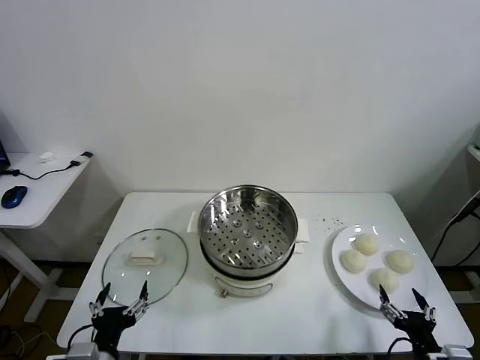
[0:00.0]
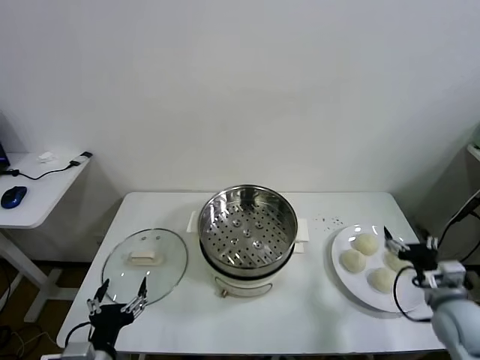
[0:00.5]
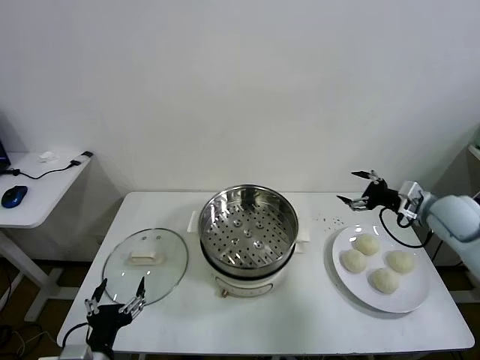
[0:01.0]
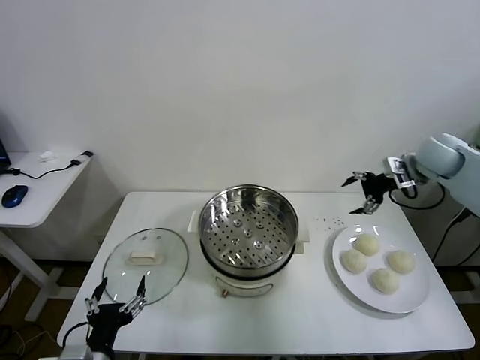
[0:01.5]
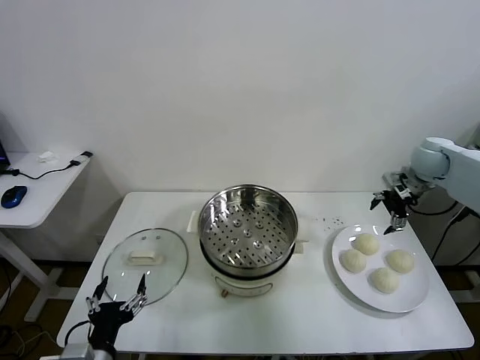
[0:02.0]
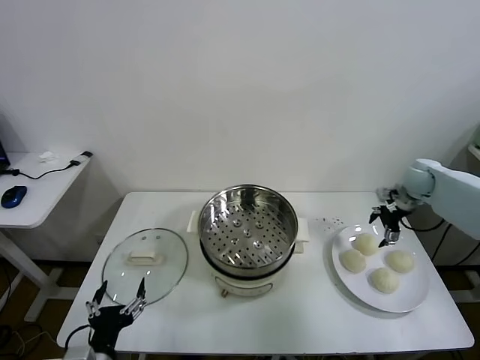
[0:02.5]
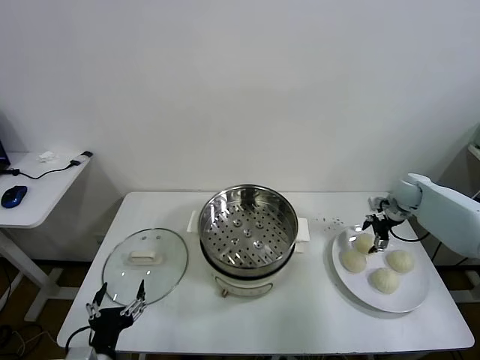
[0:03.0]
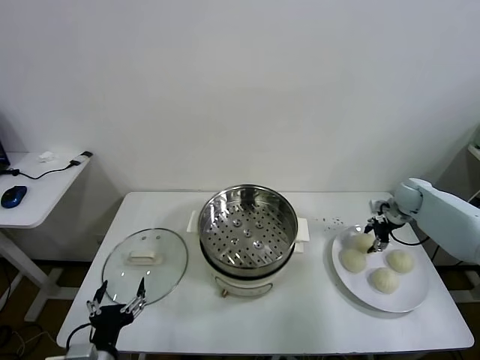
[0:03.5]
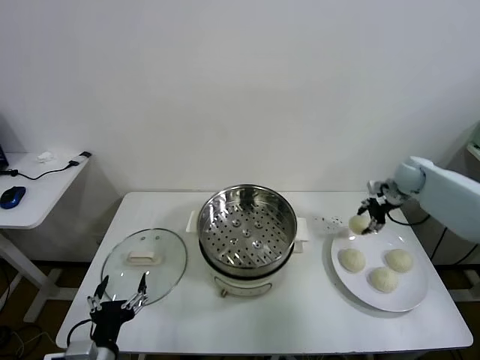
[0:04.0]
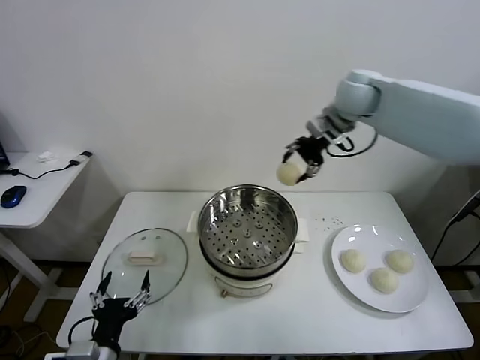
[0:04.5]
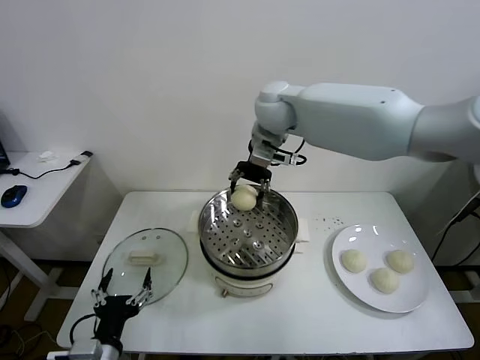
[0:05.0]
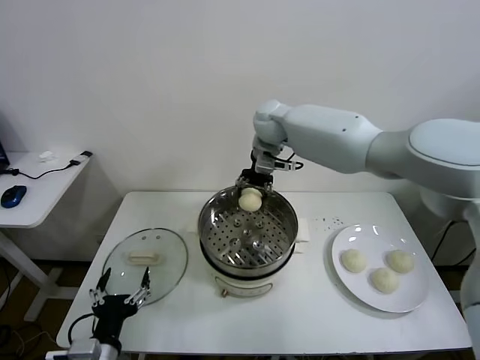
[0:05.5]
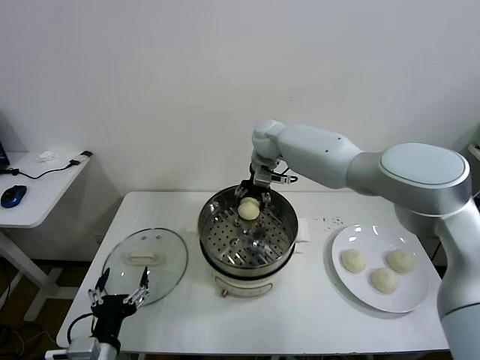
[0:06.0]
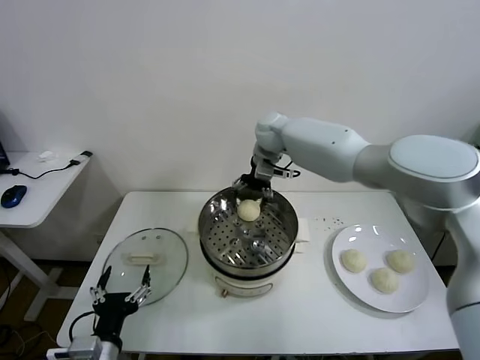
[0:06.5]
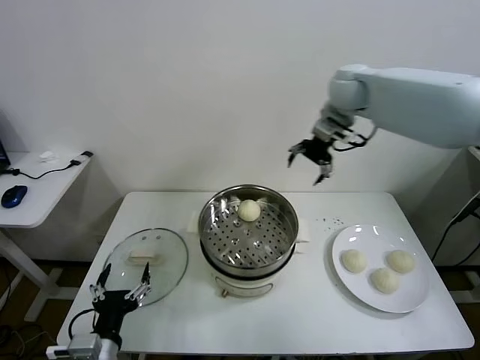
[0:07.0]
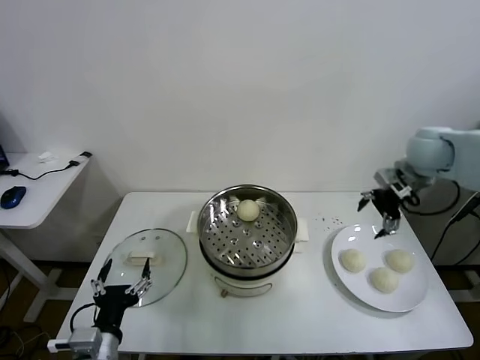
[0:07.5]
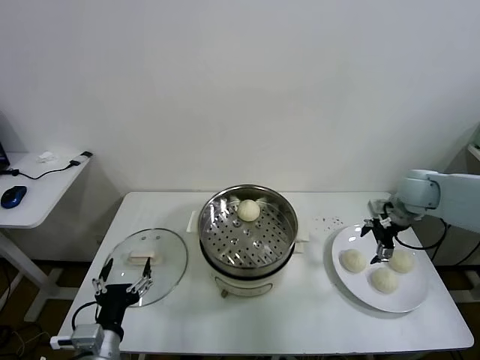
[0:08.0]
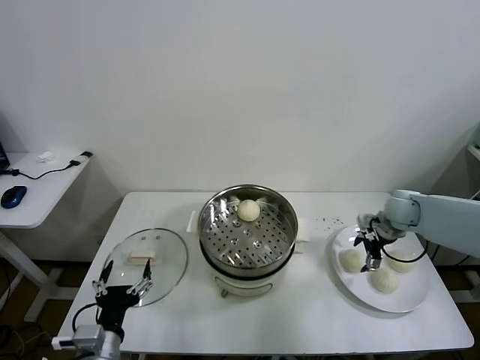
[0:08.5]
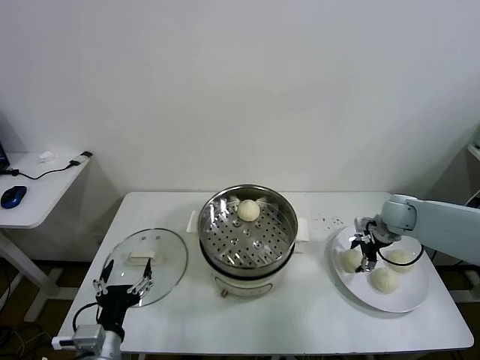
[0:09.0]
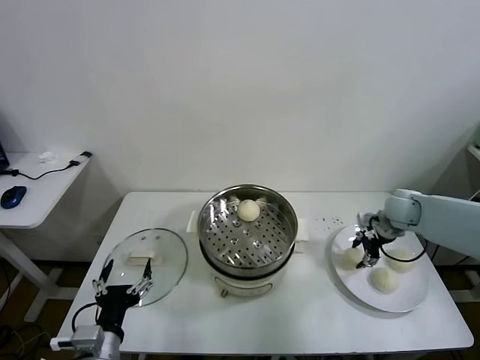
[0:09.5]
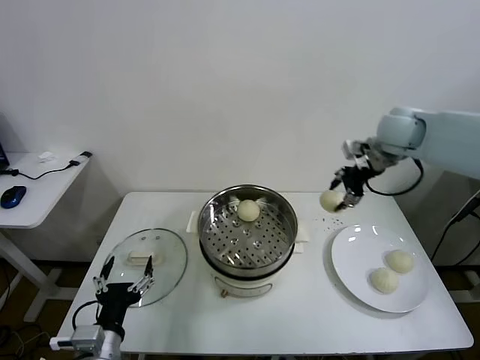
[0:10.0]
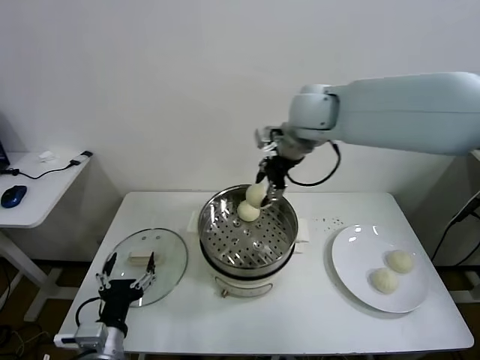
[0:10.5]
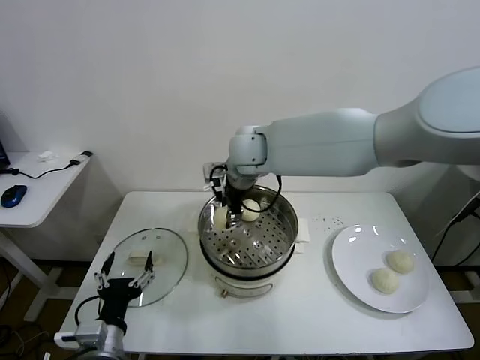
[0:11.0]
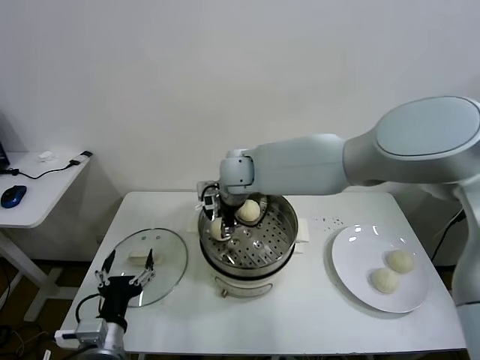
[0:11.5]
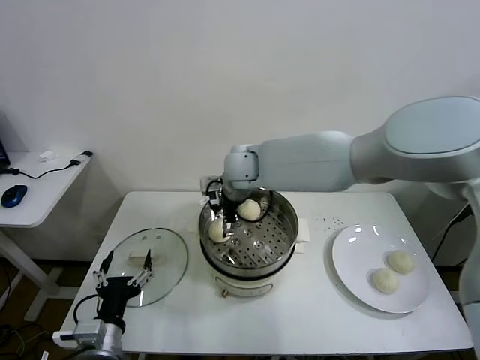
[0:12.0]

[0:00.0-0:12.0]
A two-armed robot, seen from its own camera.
Task of the whole recording: take steamed baozi put them in steamer.
Step, 0:00.0 to 0:03.5: Grasp the baozi in the plate with right gripper.
Step, 0:04.0 to 0:06.0: Place the baozi on the steamer with right gripper.
Step, 0:07.0 to 0:09.0: Grasp the baozi in the plate with right gripper.
Step, 0:09.5 to 0:12.0: Place the baozi on the steamer with right gripper.
0:02.0 to 0:04.0: The right gripper reaches about 15 cm downward, then returns, and closes its fingers.
0:04.0 to 0:06.0: The right gripper goes about 35 cm to the left.
0:06.0 to 0:08.0: The right gripper is displaced to the right and backward by approximately 35 cm, and opens up.
0:08.0 to 0:10.0: The right gripper goes approximately 20 cm upward and to the left, and closes its fingers.
0:10.0 to 0:12.0: The right gripper is displaced to the left by some 30 cm, and opens.

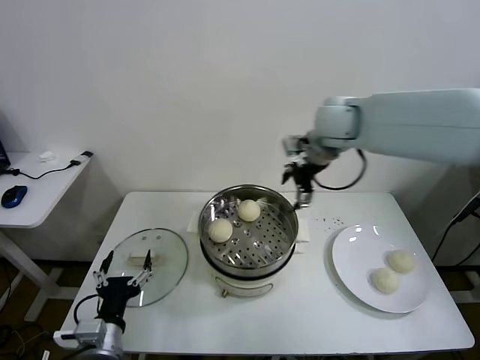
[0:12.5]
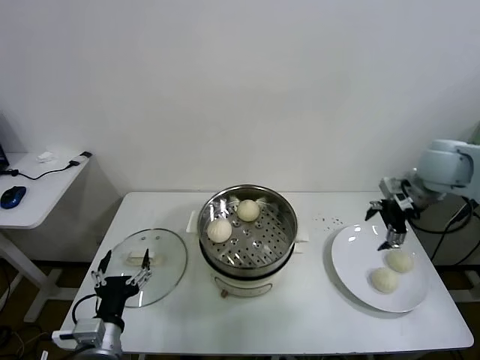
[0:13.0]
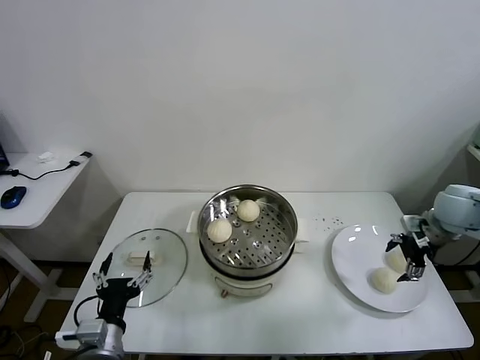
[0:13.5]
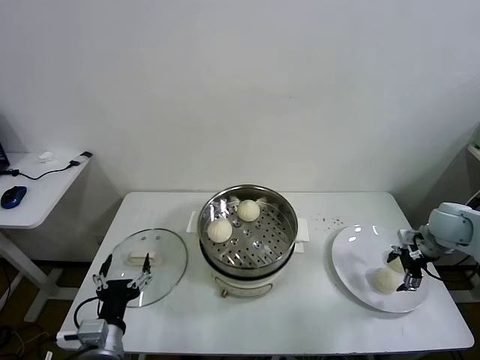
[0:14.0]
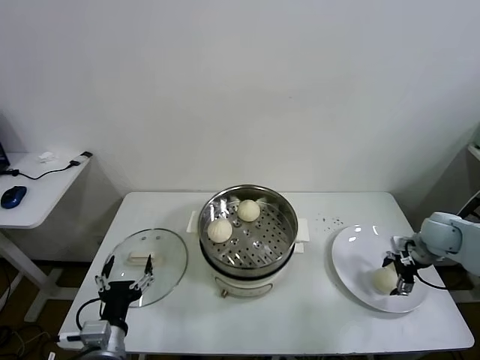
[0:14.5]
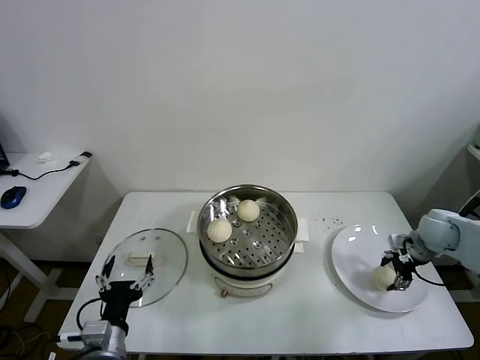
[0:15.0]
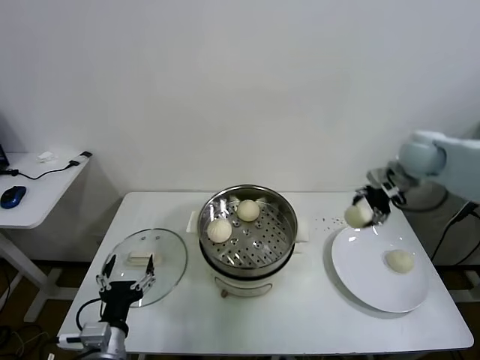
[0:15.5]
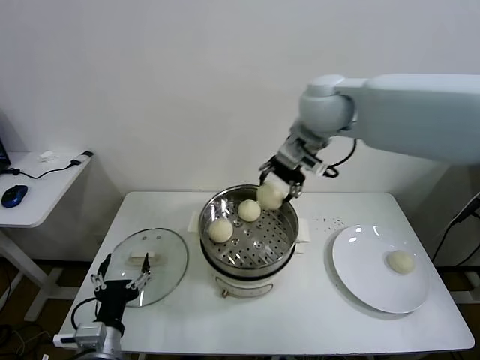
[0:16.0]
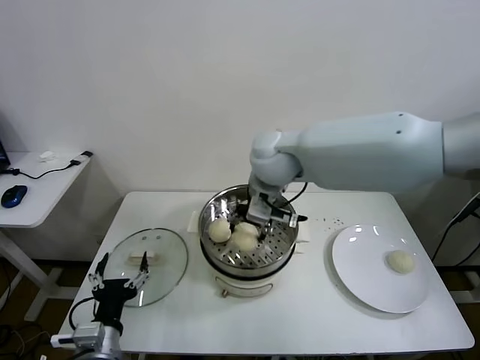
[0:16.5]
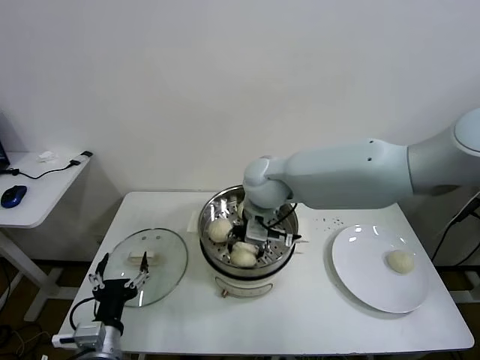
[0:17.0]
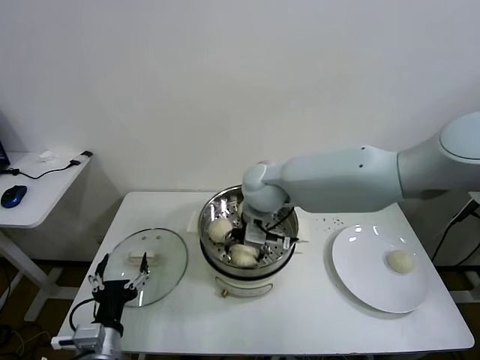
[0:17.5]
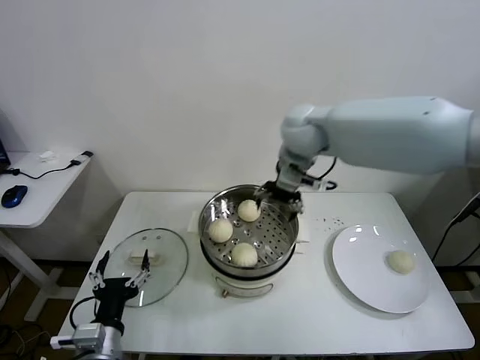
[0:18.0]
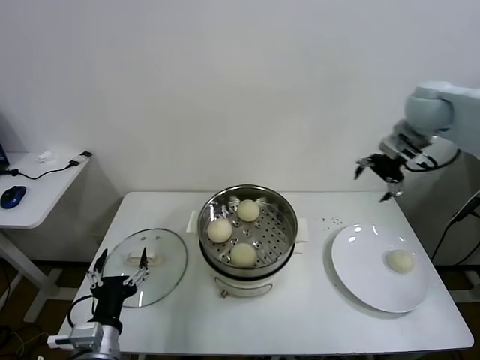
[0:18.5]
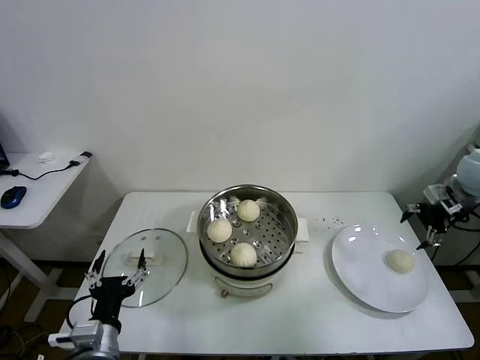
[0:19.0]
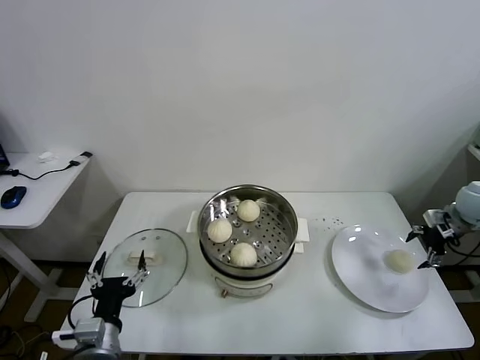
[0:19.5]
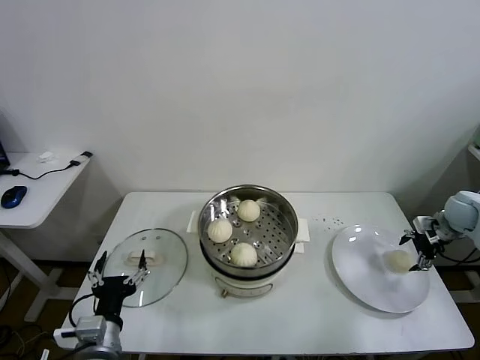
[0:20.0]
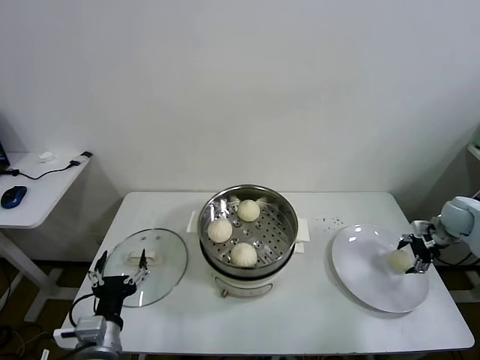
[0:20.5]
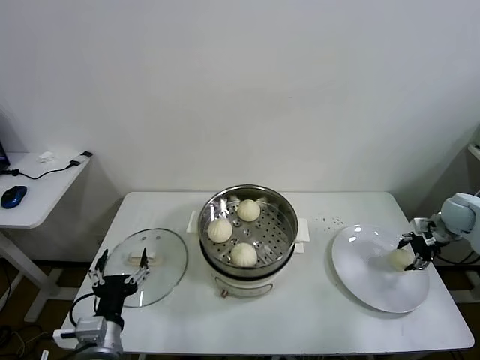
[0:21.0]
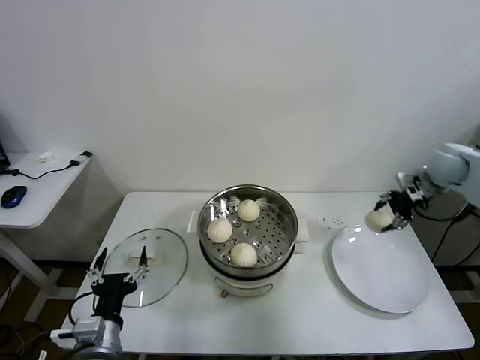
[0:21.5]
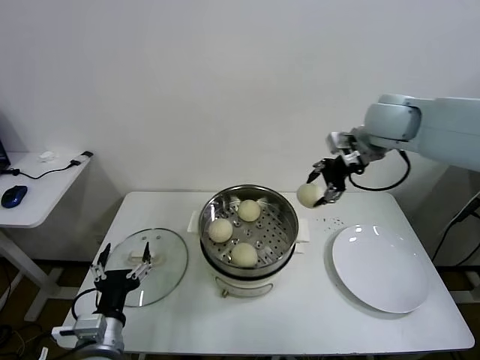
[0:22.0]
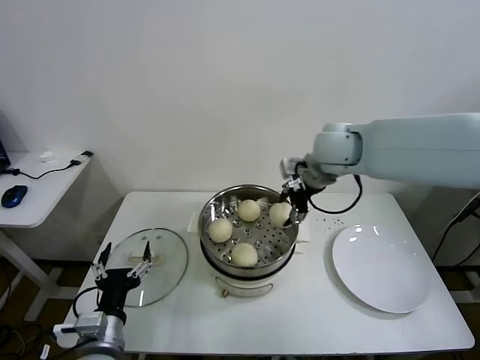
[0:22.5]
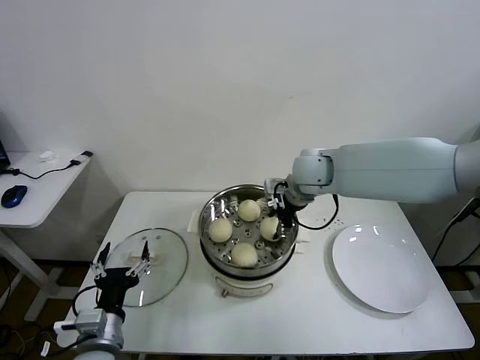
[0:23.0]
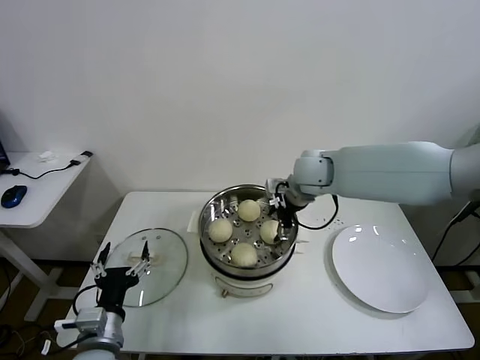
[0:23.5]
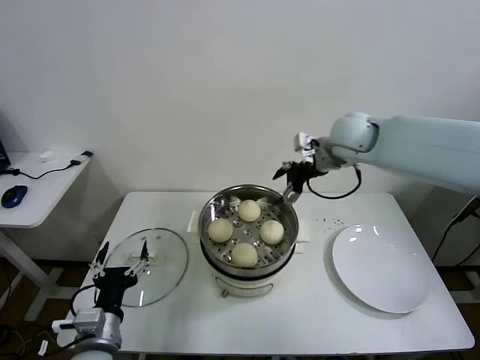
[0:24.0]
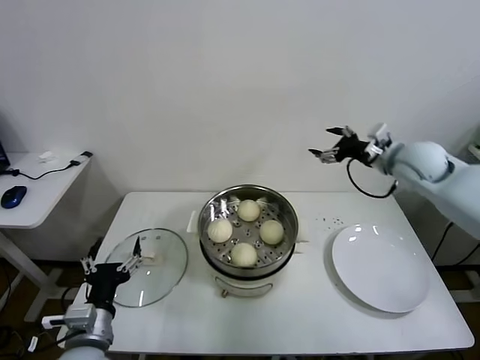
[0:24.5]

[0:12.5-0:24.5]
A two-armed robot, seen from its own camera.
Task of the whole recording: take steamed baozi put them in steamer.
Step, 0:12.5 to 0:14.5: Grasp the baozi in the plate with right gripper.
Step, 0:15.0 to 0:17.5: Place the baozi on the steamer with right gripper.
Step, 0:18.0 to 0:20.5: Grasp the baozi in the plate with right gripper.
Step, 0:21.0 to 0:23.5: Place the baozi on the steamer with right gripper.
0:12.5 to 0:14.5: The right gripper is displaced downward and to the right by roughly 35 cm.
0:14.5 to 0:16.5: The right gripper is displaced to the left and upward by some 50 cm, and closes its fingers.
0:16.5 to 0:18.5: The right gripper moves to the right, roughly 35 cm, and opens up.
0:18.5 to 0:20.5: The right gripper travels downward and to the right by approximately 30 cm.
0:20.5 to 0:22.5: The right gripper heads to the left and upward, covering roughly 40 cm, and closes.
0:22.5 to 0:24.5: The right gripper travels to the right by some 20 cm, and opens.

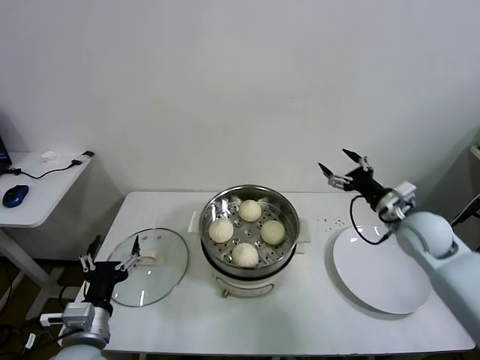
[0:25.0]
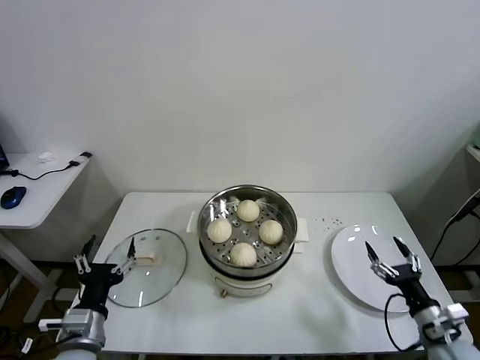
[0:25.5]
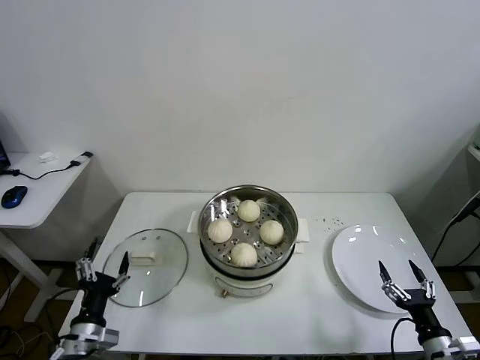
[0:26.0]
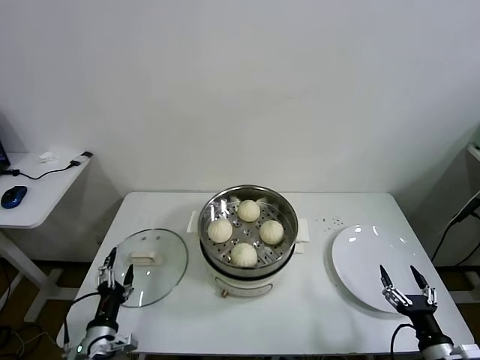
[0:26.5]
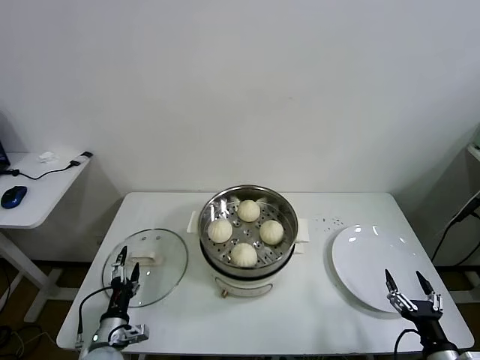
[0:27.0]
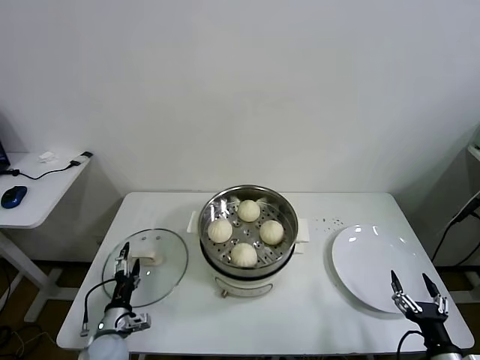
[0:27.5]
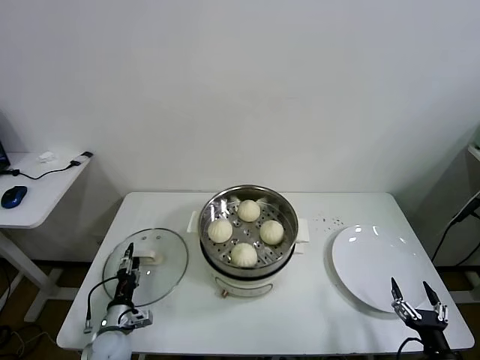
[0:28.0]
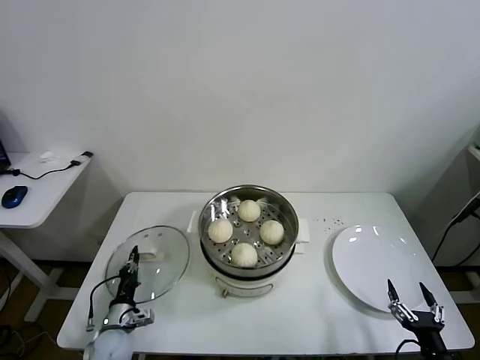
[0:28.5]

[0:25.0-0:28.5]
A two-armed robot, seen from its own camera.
Task of the whole recording: take steamed baozi put them in steamer.
Step, 0:25.0 to 0:28.5: Grasp the pot lid with left gripper.
0:25.0 to 0:27.0: The left gripper is displaced downward by about 15 cm. The right gripper moves backward and downward, roughly 35 cm.
0:27.0 to 0:28.5: The left gripper is displaced forward by roughly 5 cm, and closes up.
